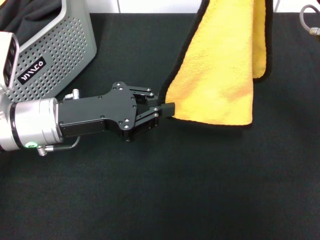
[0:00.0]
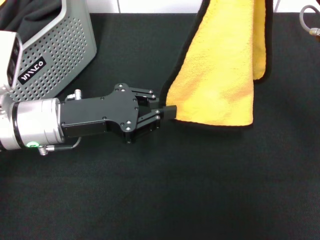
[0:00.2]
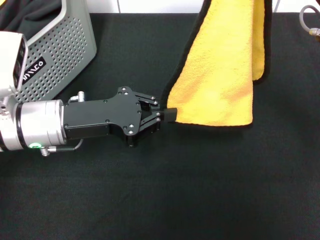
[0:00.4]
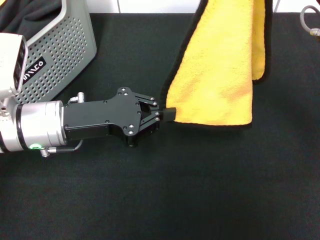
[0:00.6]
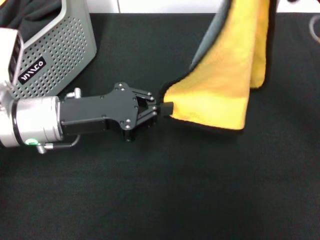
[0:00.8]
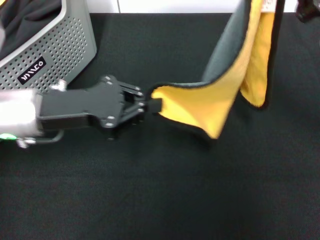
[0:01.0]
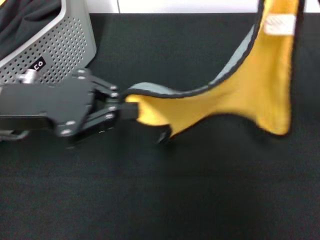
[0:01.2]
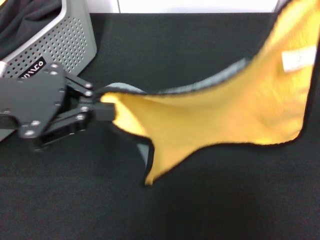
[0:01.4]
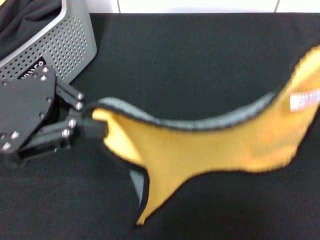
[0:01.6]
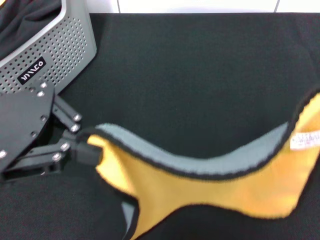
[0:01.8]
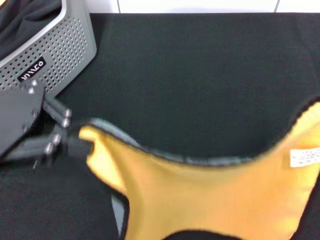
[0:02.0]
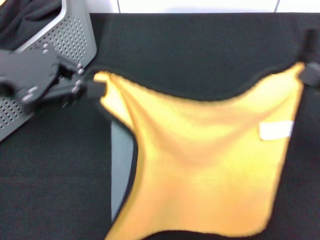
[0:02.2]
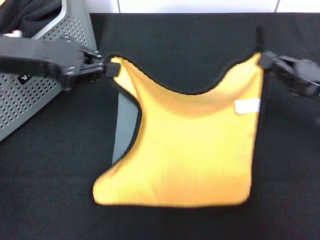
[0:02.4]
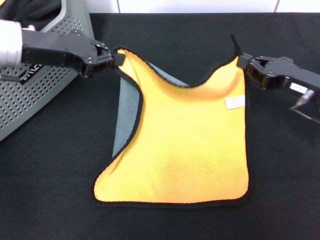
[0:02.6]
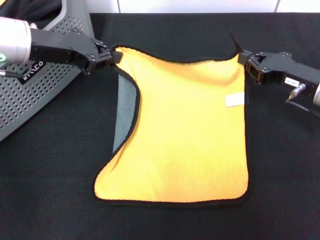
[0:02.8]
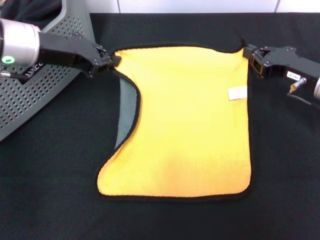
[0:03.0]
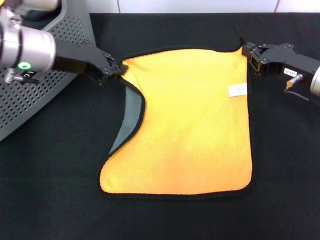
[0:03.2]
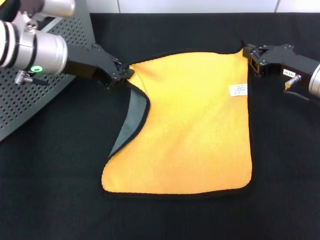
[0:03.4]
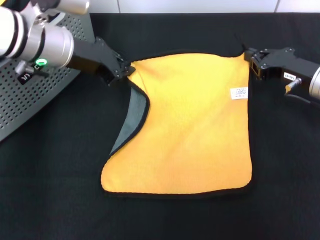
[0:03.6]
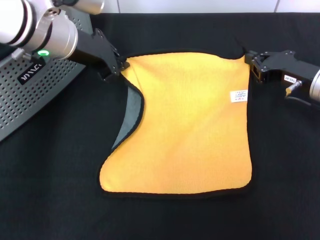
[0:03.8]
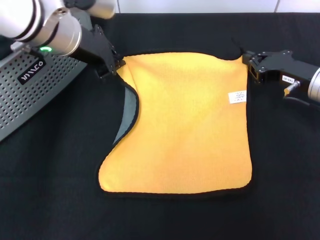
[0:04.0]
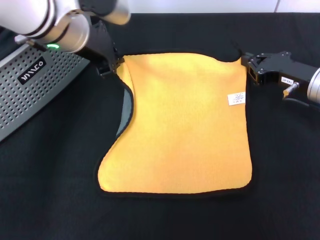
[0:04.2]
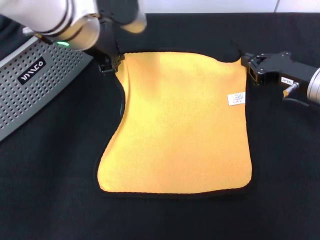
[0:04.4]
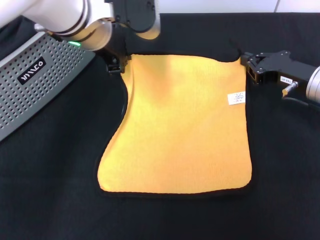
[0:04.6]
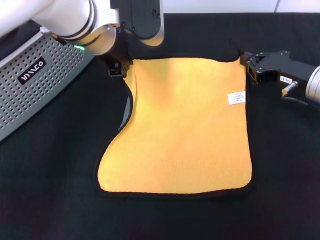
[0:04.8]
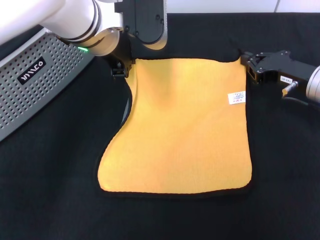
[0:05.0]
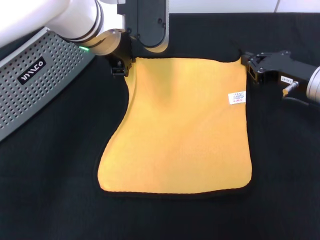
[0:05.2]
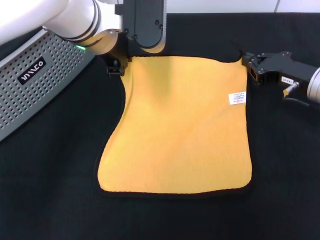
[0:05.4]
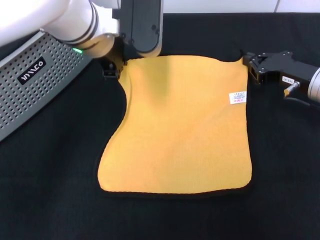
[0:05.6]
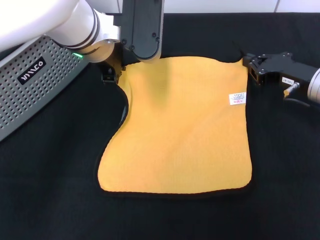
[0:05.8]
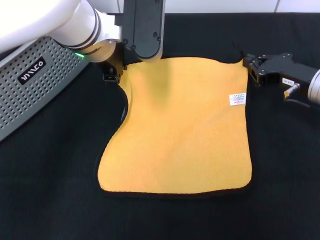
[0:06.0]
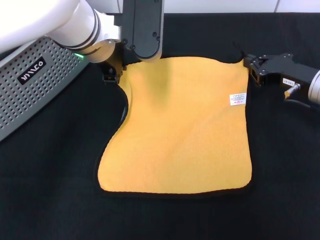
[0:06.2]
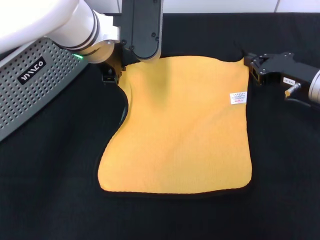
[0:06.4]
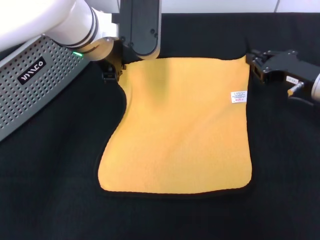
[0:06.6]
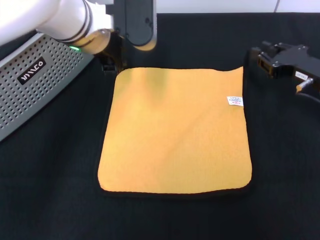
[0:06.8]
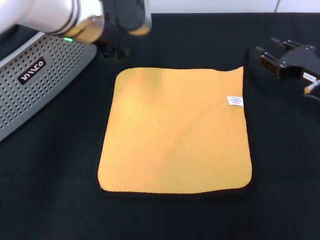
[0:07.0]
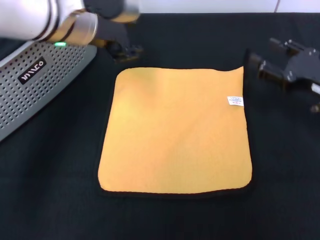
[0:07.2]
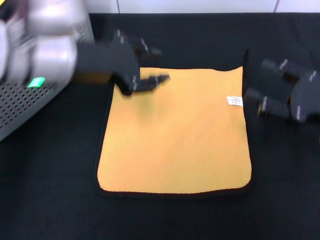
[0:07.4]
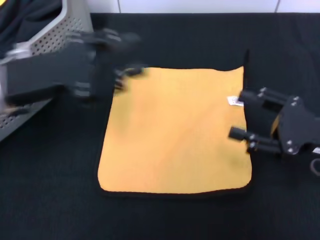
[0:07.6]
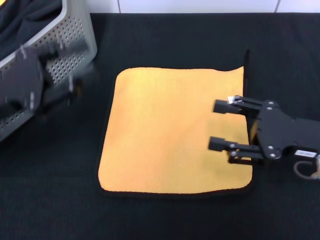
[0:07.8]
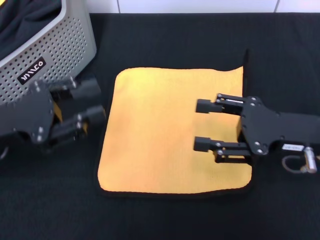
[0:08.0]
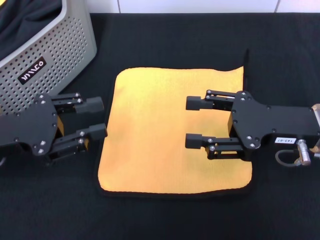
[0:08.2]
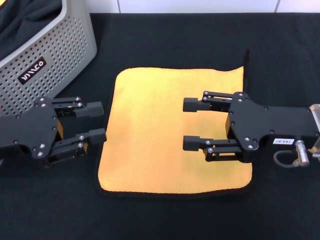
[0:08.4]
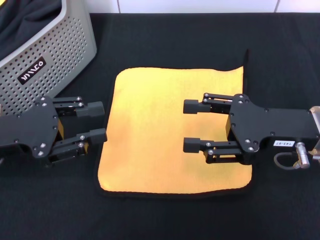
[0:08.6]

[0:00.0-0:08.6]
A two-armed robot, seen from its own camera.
Task of the whole recording: pick up the towel from the storage box and lay it flat on the black tablecloth.
Step, 0:00.0 to 0:06.6: Spread the towel flat with the right gripper.
0:00.0 to 0:01.4: The right gripper is displaced to the right by roughly 10 cm. Meanwhile the left gripper shifts about 10 cm upward and to the left.
0:01.4 to 0:02.8: The left gripper goes about 10 cm forward. The right gripper heads downward and forward, covering about 15 cm.
0:02.8 to 0:04.4: The left gripper travels to the right by about 10 cm.
0:04.4 to 0:05.8: The grippers stay close to where they were, moving slightly.
0:05.8 to 0:07.2: The right gripper moves backward, roughly 5 cm, and opens. The left gripper moves approximately 5 cm, and opens.
0:07.2 to 0:08.6: The left gripper moves to the left, backward and downward, roughly 20 cm. The right gripper shifts approximately 5 cm to the left.
